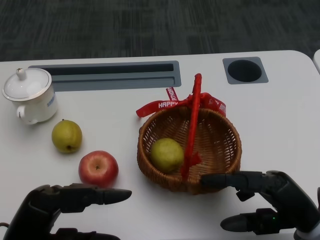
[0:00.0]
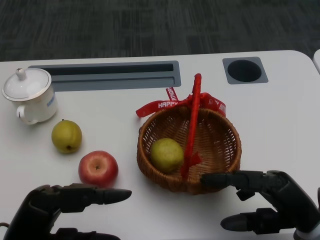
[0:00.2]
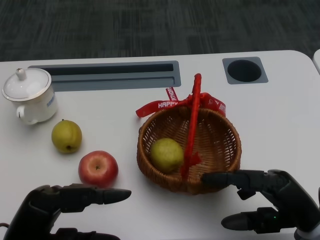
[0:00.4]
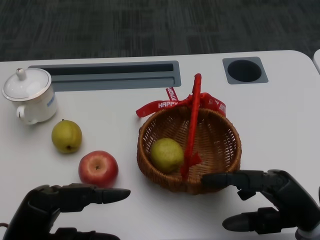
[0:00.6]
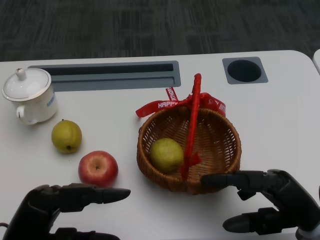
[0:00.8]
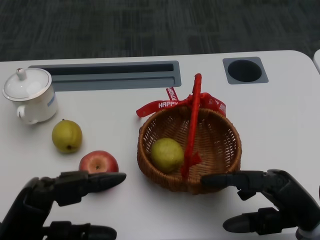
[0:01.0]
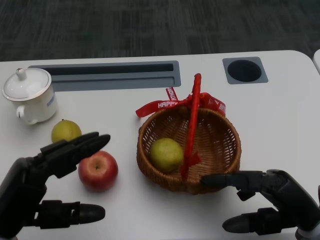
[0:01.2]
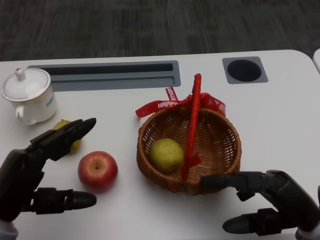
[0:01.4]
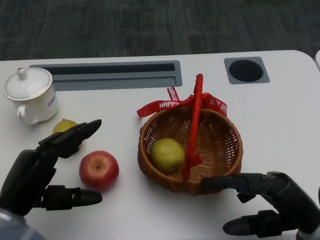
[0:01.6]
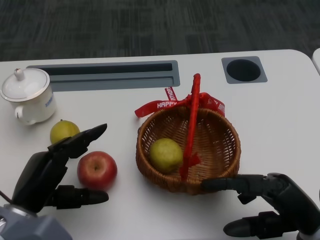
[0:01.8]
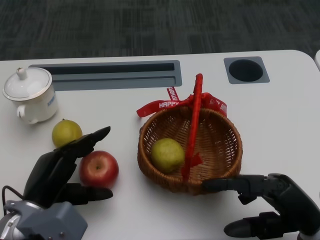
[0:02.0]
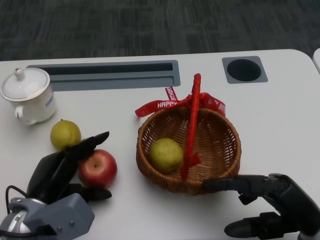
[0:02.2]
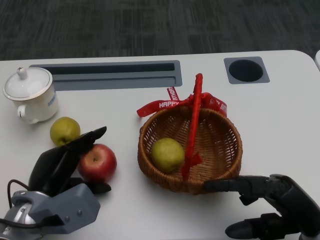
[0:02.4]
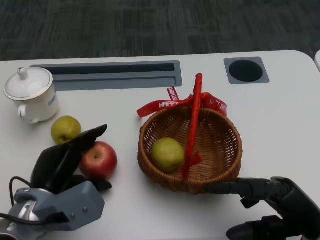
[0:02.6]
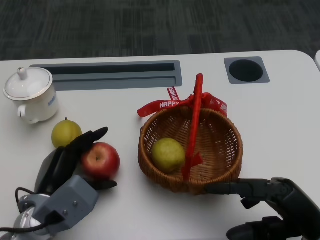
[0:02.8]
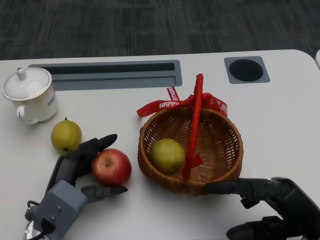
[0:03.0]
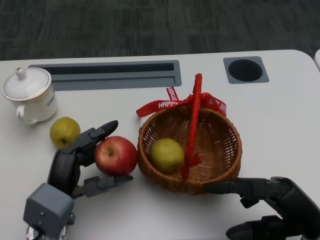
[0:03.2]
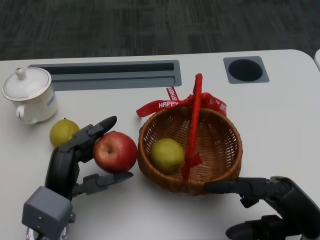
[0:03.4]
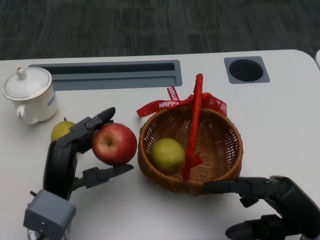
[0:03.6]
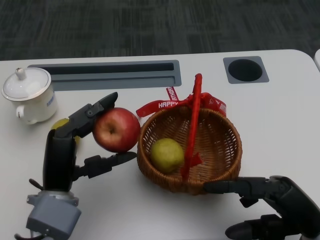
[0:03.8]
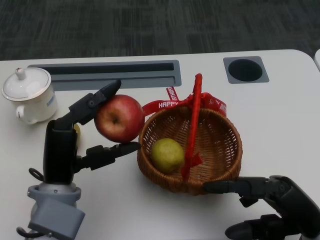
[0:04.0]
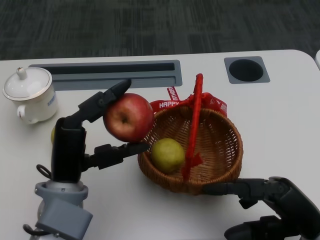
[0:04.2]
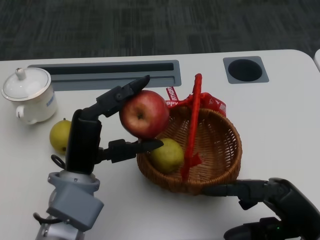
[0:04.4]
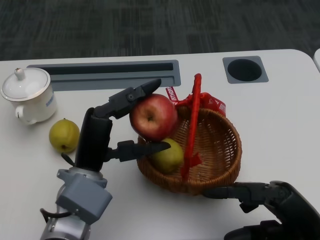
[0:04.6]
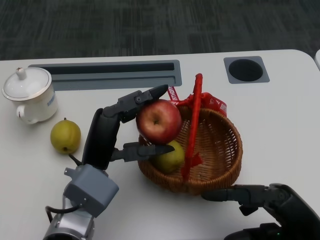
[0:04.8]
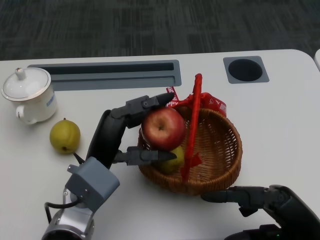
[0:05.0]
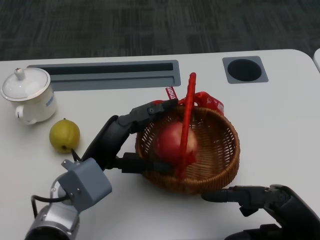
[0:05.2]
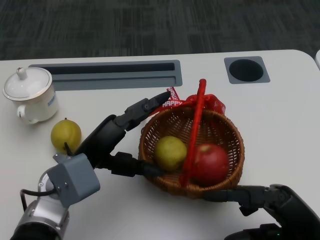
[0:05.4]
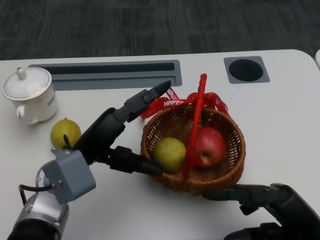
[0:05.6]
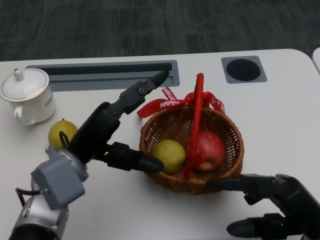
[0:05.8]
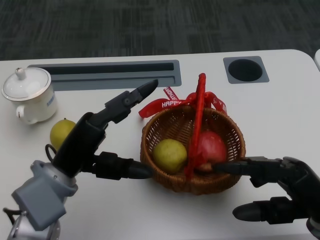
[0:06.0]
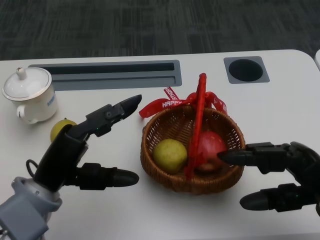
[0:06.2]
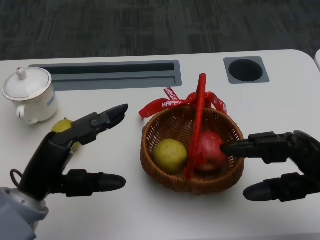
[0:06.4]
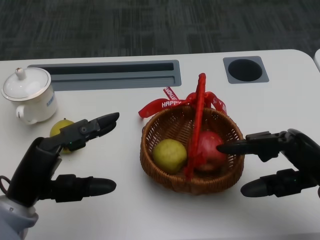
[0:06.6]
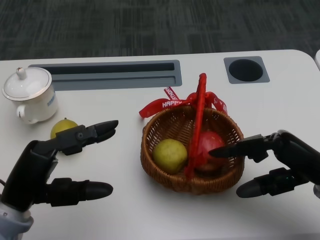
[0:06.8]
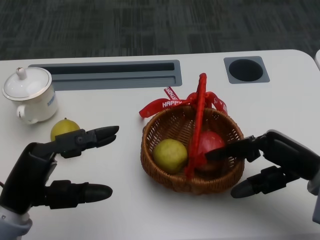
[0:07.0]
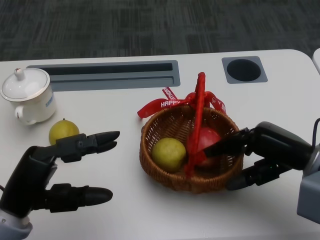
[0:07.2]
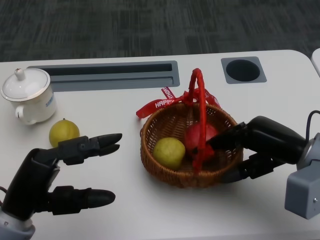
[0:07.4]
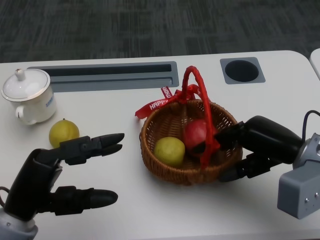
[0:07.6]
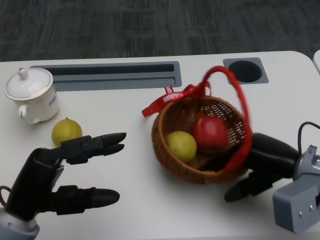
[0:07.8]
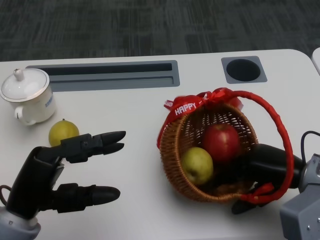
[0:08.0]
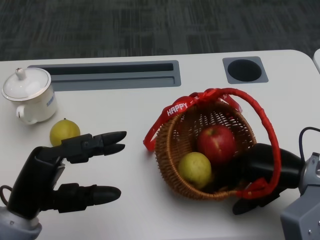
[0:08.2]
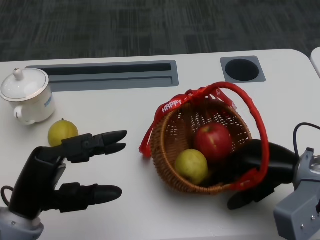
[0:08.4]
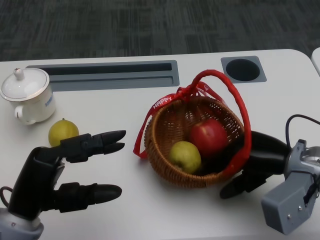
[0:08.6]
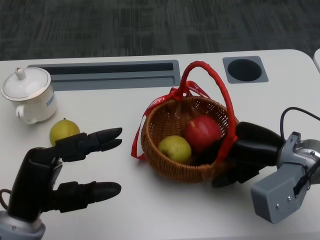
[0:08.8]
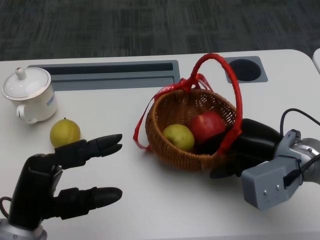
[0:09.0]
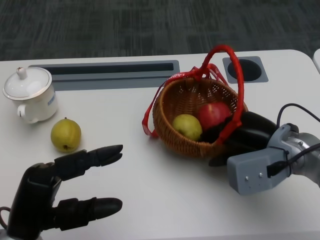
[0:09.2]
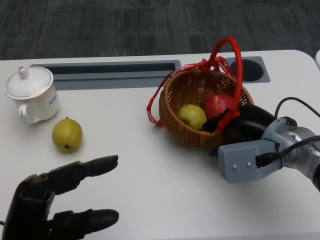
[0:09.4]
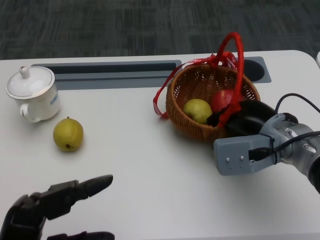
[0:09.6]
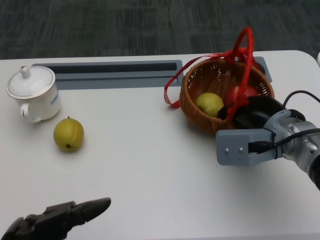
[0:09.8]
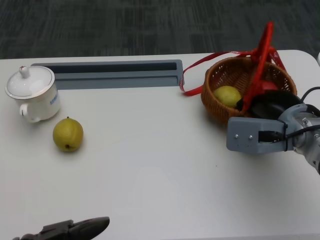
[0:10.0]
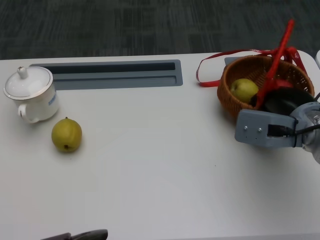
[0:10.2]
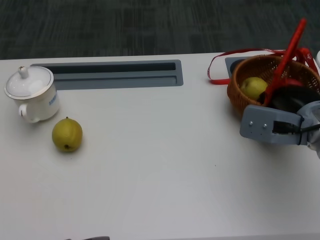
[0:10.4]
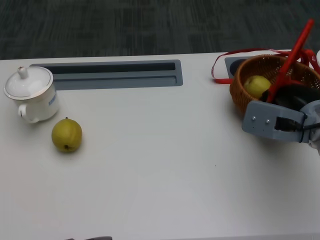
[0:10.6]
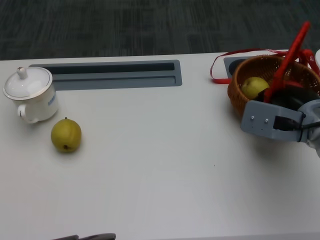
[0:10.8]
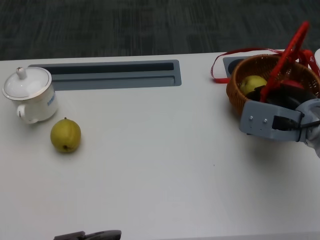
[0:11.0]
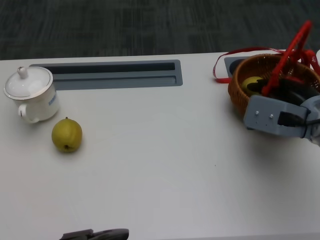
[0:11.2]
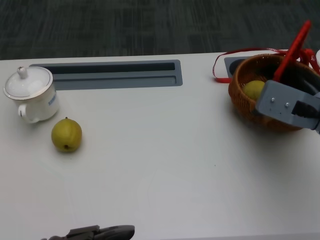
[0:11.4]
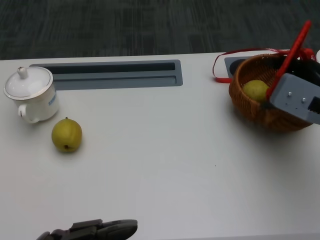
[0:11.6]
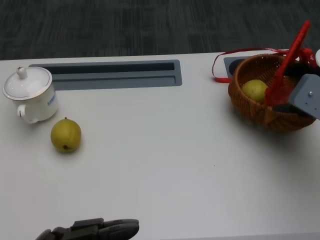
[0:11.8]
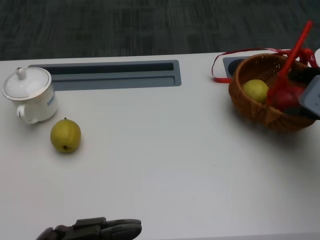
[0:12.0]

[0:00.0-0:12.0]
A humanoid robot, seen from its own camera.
Step, 0:00.8 to 0:02.0: Grasp the apple with the left gripper.
Step, 0:02.2 to 0:04.4: Place the apple into the basket with the left gripper.
Step, 0:04.6 to 0:07.0: Grasp the basket with the right gripper.
Step, 0:07.4 to 0:09.0: Move the basket to the front of the table with the right gripper.
0:01.6 to 0:03.0: The left hand travels to the right by some 5 cm.
0:03.0 to 0:04.4: The left hand moves upward, some 5 cm.
0:06.0 to 0:07.6: The left hand shifts some 10 cm backward and to the left. The right hand heads forward, covering roughly 10 cm.
0:09.0 to 0:10.4: The left hand goes some 15 cm backward.
0:10.4 to 0:12.0: The right hand is displaced to the right by roughly 5 cm.

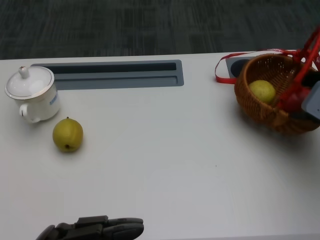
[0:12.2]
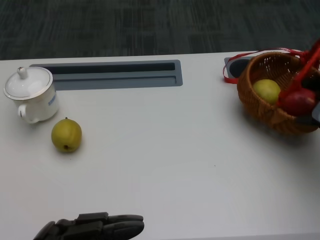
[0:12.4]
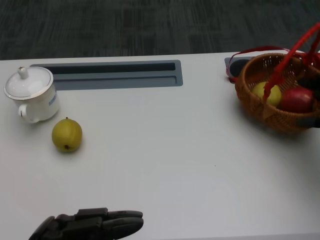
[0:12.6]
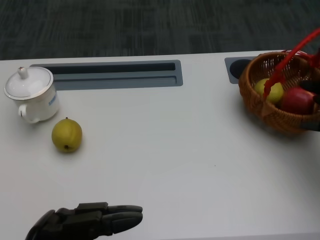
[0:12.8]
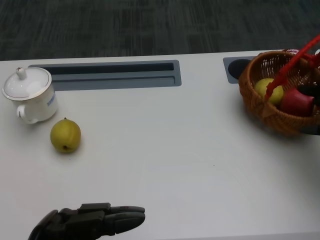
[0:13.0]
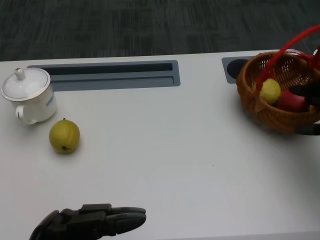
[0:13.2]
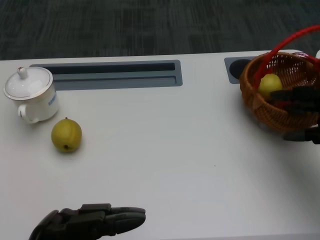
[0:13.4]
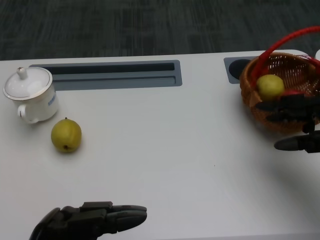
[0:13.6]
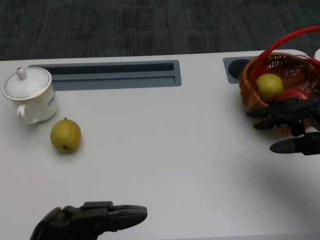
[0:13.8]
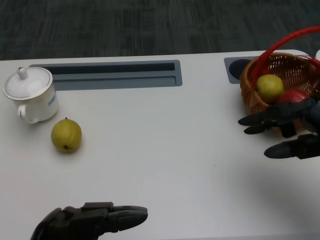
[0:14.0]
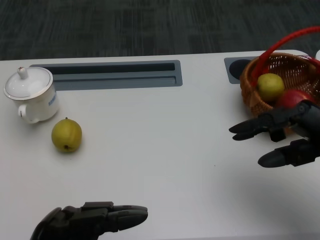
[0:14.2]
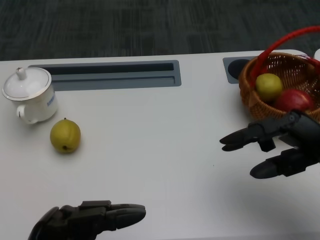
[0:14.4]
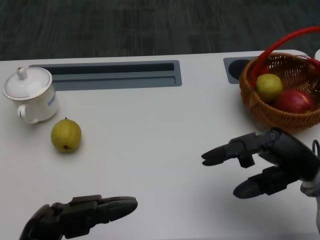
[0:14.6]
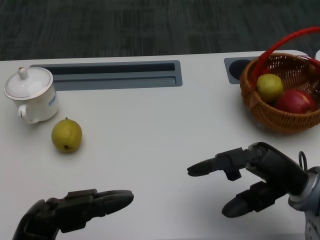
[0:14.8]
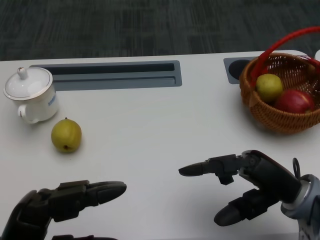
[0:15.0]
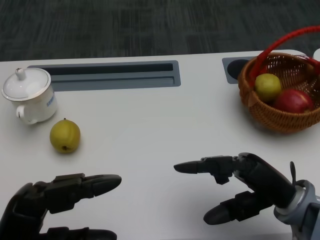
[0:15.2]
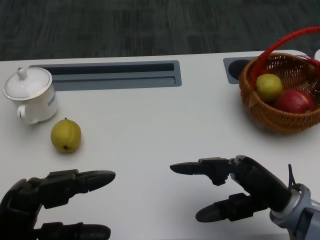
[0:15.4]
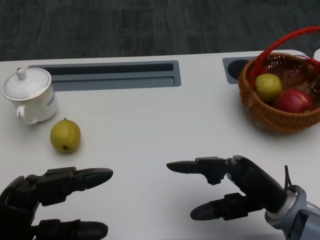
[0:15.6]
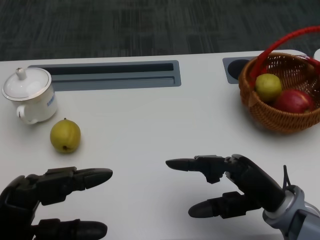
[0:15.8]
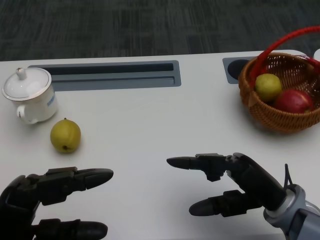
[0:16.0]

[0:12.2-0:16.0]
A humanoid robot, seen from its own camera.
0:13.4 to 0:14.8: The right hand travels to the left by about 10 cm.
0:14.8 to 0:16.0: The hands move only a little.
